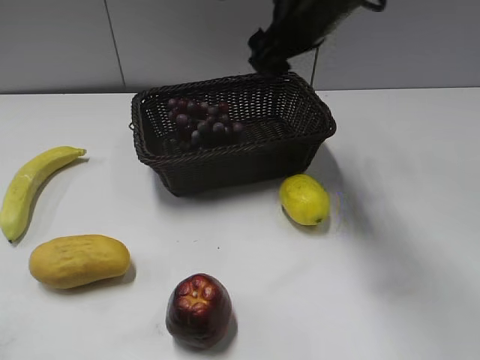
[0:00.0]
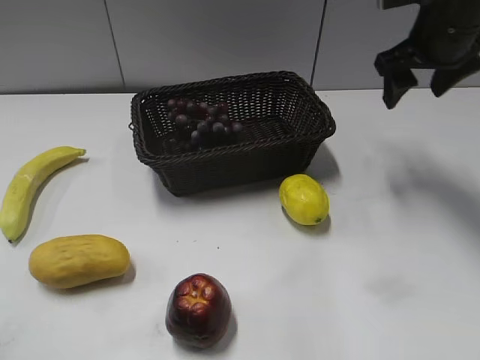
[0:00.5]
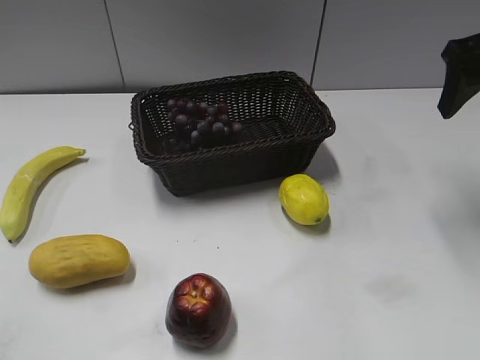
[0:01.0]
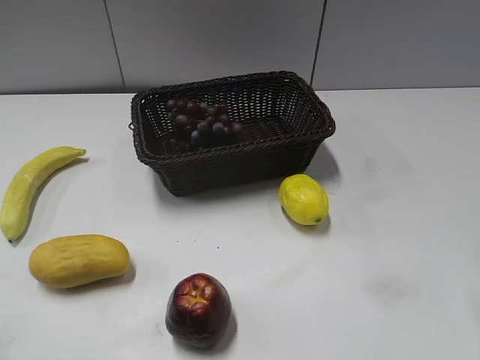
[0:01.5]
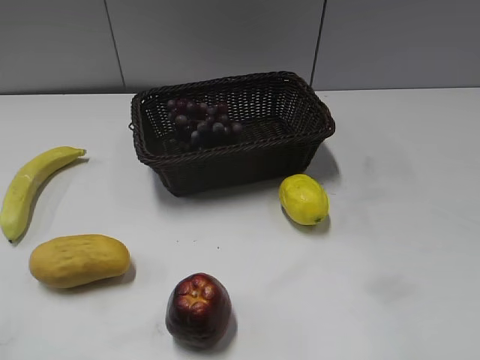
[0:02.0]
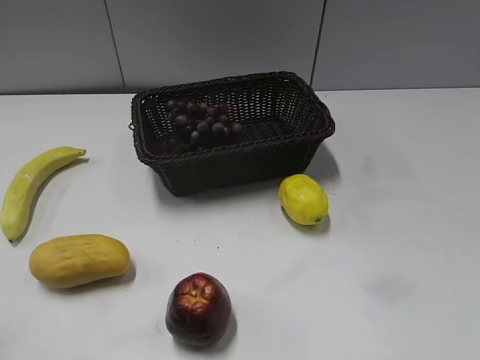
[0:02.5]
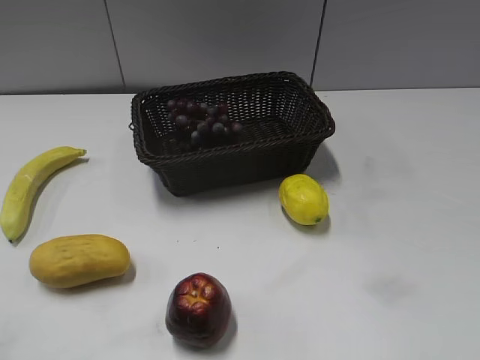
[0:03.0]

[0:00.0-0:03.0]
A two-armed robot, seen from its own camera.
0:00.0 to 0:01.5: The right gripper goes approximately 25 cm to the right and backward.
